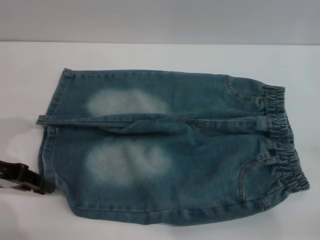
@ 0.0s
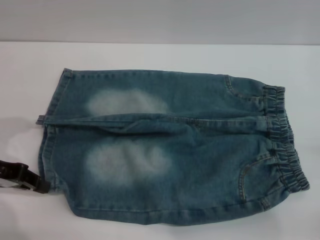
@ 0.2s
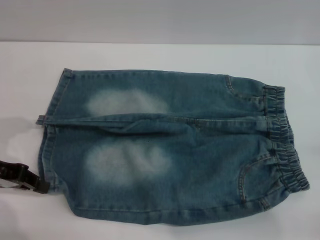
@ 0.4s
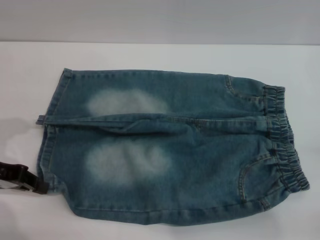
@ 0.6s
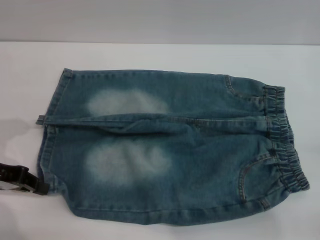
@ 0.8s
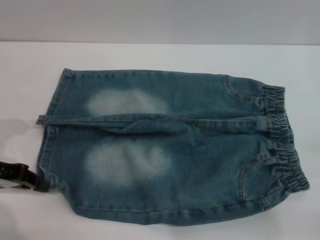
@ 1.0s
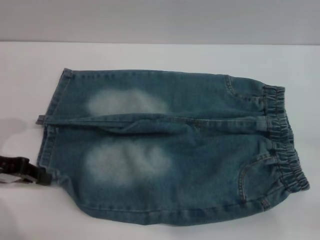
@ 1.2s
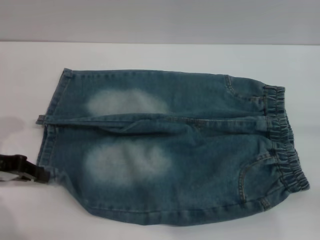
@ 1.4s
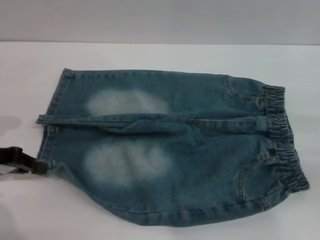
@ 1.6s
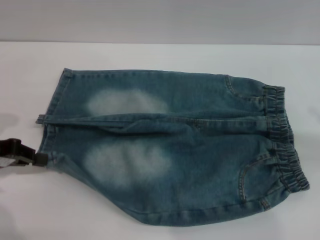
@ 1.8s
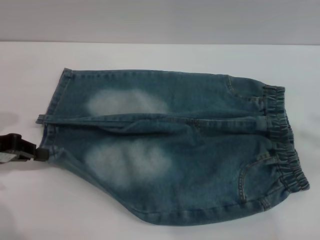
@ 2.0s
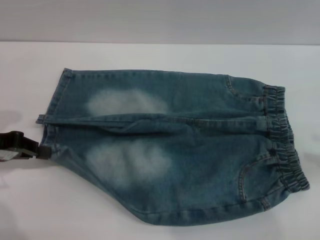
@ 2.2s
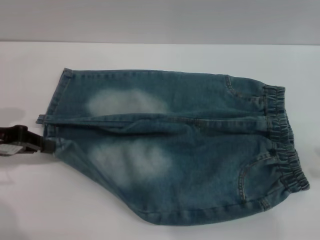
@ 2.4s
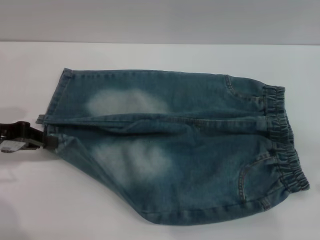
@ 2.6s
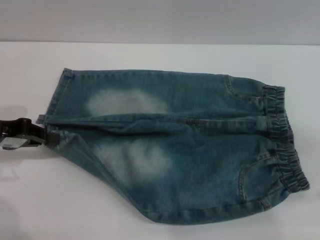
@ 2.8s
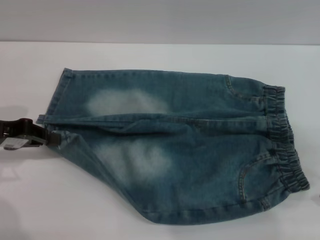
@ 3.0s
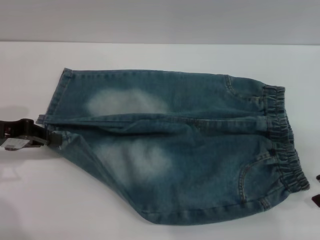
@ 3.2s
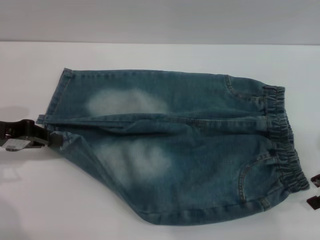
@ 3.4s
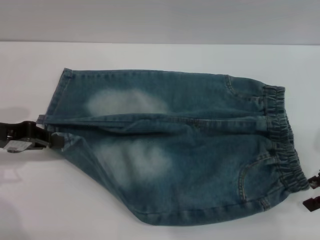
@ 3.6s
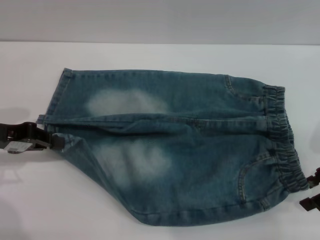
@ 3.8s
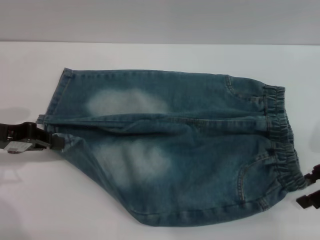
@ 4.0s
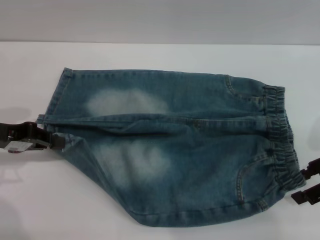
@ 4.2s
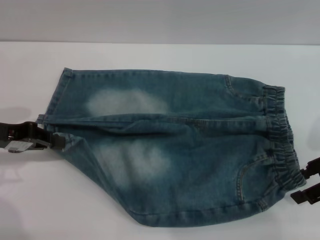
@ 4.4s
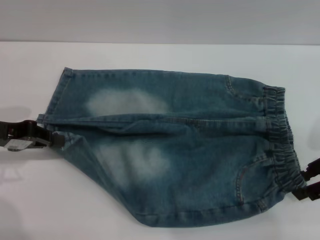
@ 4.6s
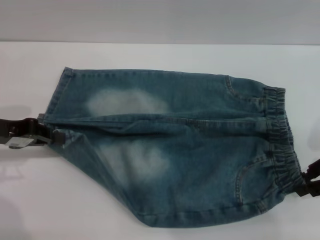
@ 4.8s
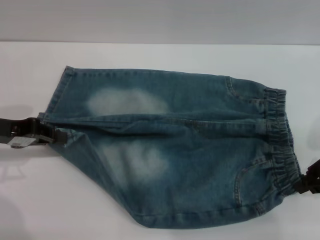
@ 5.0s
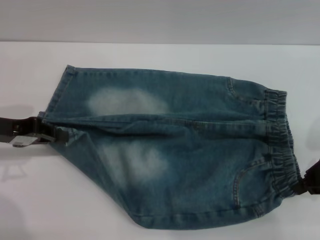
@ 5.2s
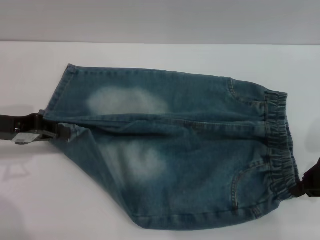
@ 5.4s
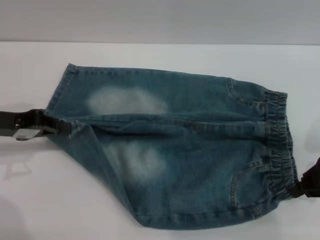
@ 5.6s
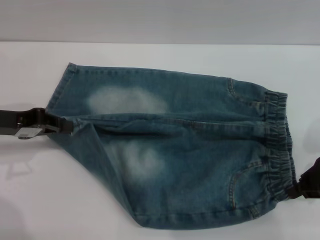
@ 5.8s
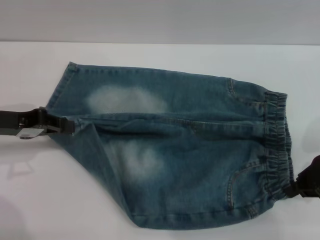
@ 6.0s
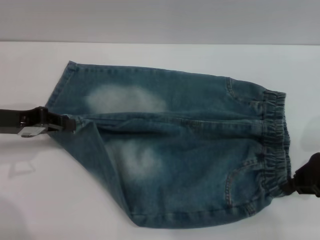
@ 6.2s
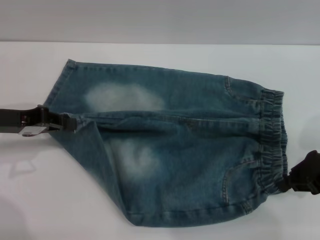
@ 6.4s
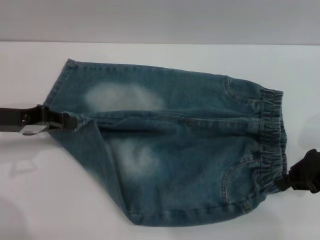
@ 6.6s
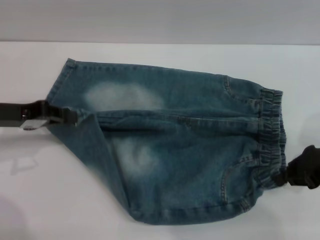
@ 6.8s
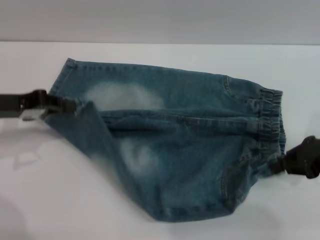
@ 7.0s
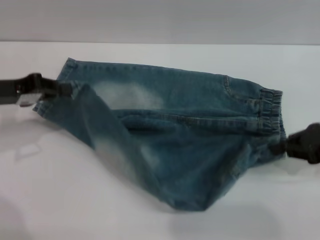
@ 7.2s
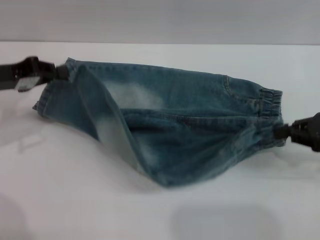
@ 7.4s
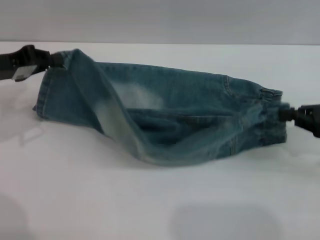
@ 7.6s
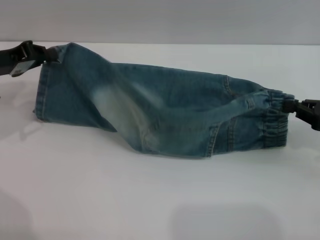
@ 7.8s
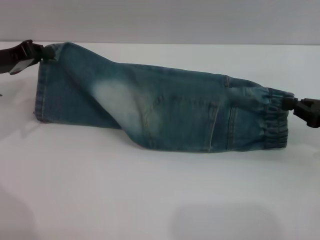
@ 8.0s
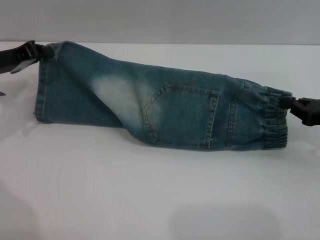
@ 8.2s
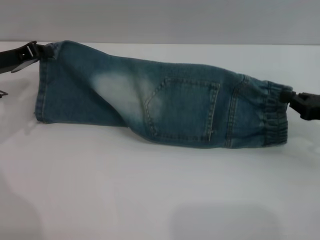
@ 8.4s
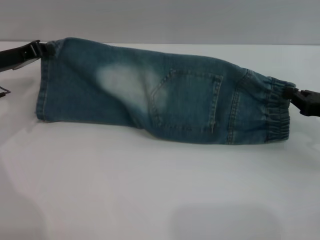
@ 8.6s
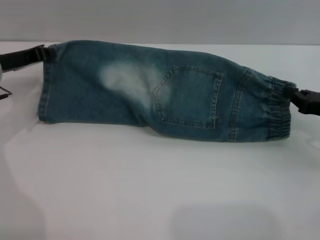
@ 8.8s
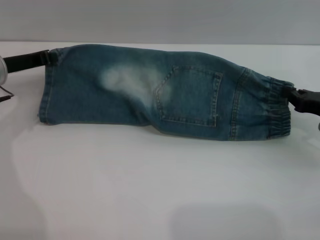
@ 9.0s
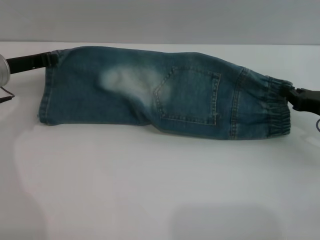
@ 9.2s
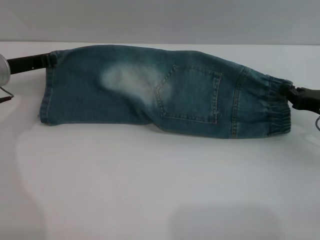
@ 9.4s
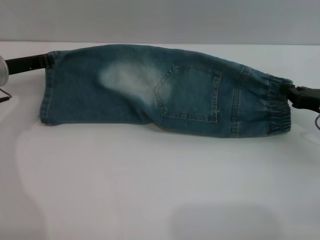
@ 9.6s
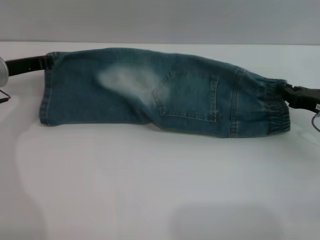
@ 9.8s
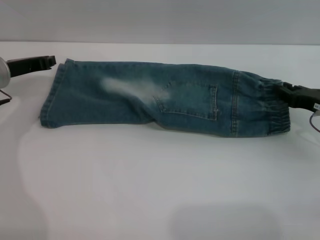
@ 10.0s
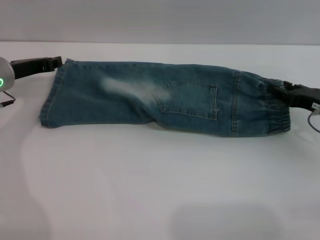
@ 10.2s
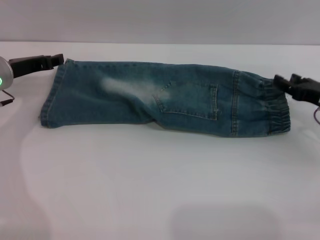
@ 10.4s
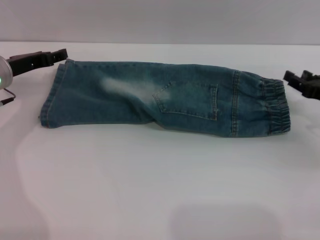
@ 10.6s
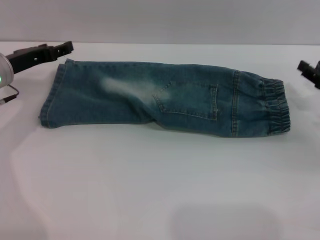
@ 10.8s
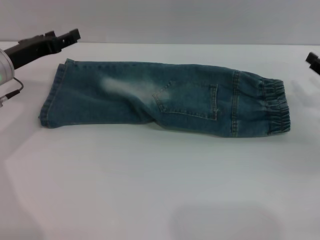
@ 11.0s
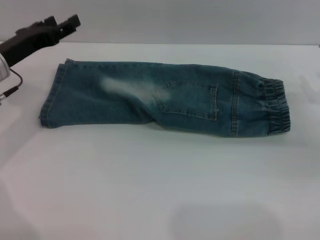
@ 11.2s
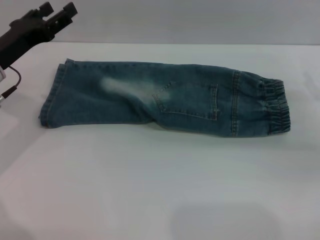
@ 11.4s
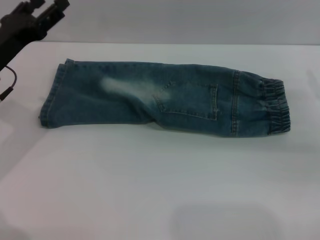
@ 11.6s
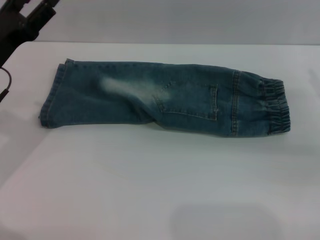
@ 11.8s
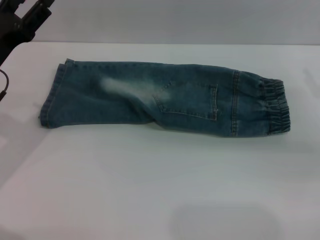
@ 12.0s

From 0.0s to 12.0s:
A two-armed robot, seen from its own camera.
Step, from 0.0s to 10.6s: Fold the bottom of the pants upward with both grippers.
From 0.0s to 1.6s: The left gripper closes.
From 1.6s to 3.0s: The right gripper goes some 5 cm to the left, and goes upward and returns, about 10 cm each way.
From 3.0s to 4.4s: The grippers make only small movements.
From 4.4s to 6.0s: The right gripper closes up.
From 7.6s to 9.0s: The left gripper ends up about 5 cm from where it was. The right gripper goes about 5 cm downward.
From 9.0s to 10.4s: The right gripper opens its fingers.
From 10.4s to 12.0s: The right gripper moves some 5 cm. Meanwhile the left gripper moves backward, some 10 cm, and opens its fingers.

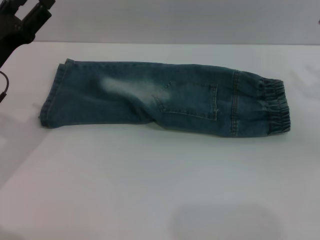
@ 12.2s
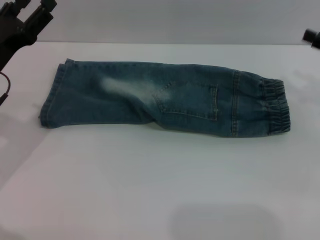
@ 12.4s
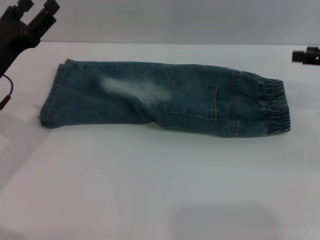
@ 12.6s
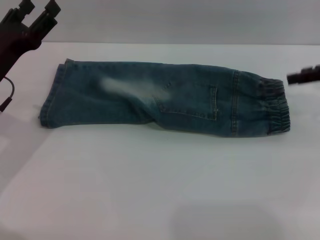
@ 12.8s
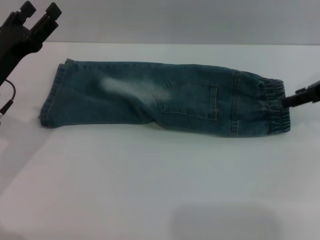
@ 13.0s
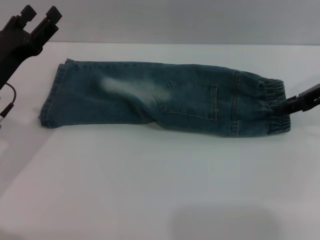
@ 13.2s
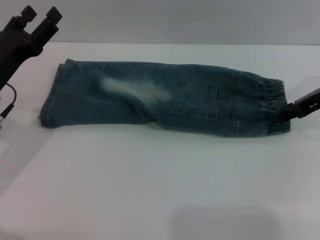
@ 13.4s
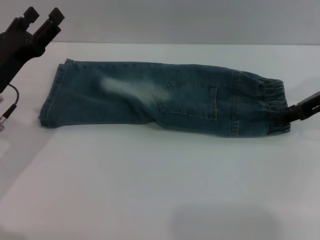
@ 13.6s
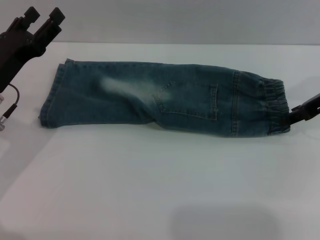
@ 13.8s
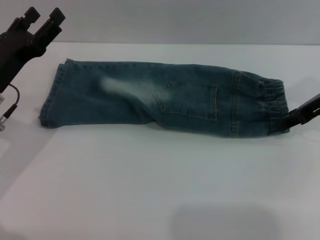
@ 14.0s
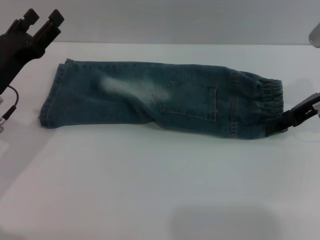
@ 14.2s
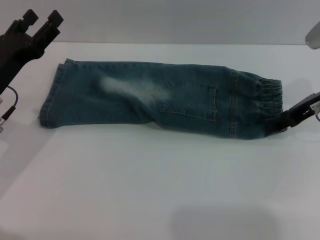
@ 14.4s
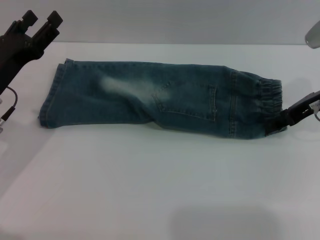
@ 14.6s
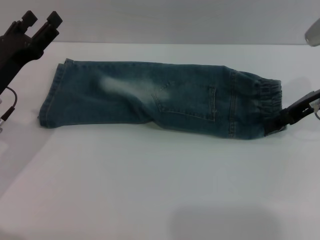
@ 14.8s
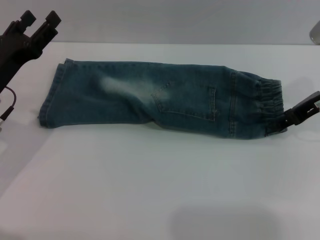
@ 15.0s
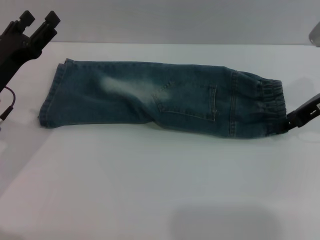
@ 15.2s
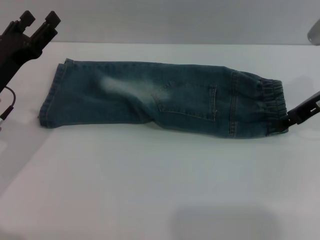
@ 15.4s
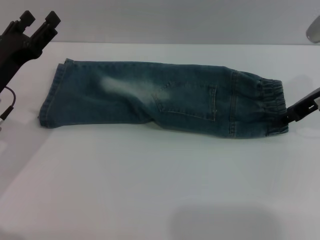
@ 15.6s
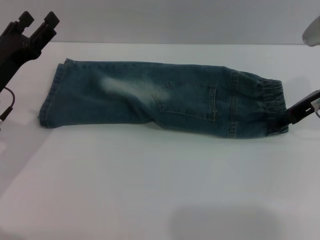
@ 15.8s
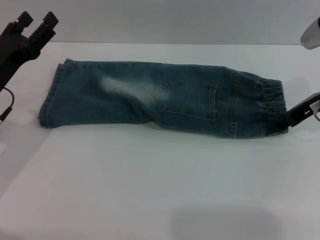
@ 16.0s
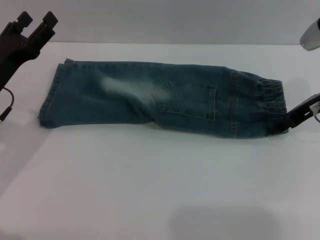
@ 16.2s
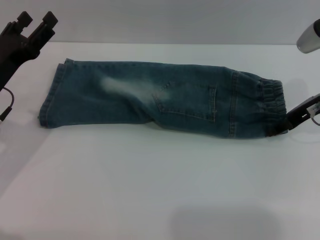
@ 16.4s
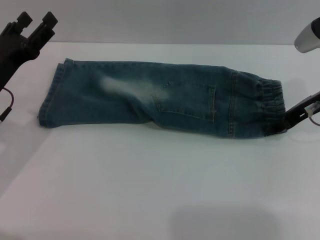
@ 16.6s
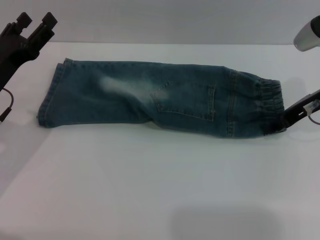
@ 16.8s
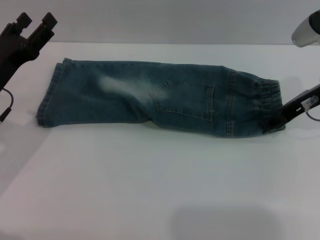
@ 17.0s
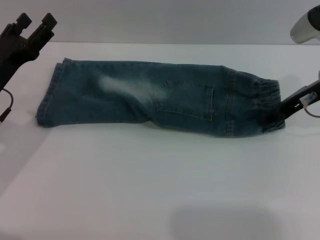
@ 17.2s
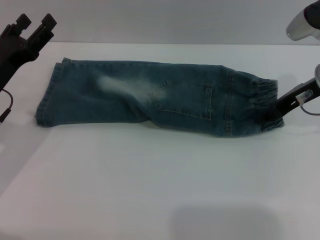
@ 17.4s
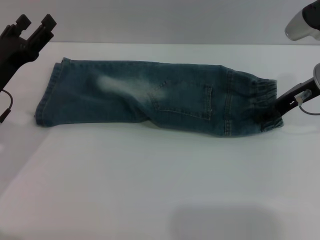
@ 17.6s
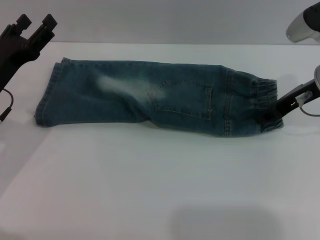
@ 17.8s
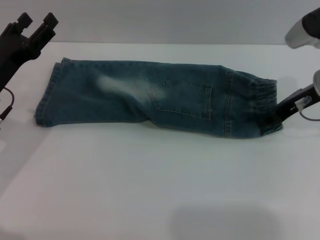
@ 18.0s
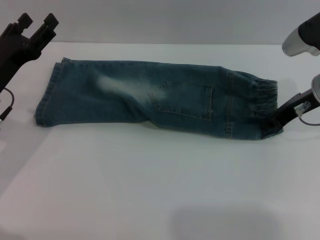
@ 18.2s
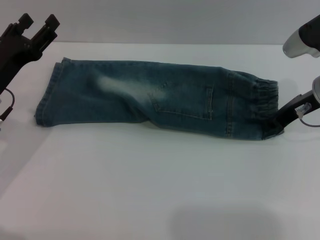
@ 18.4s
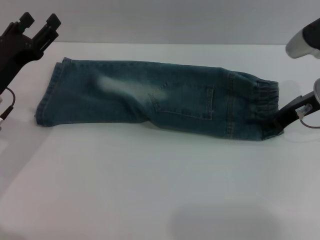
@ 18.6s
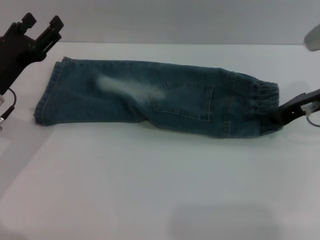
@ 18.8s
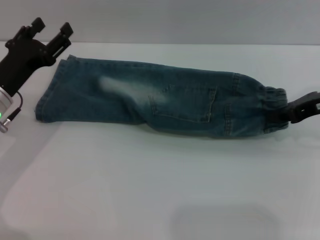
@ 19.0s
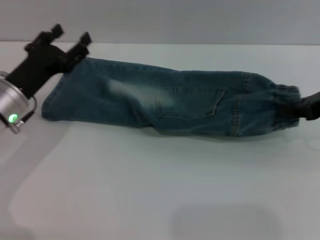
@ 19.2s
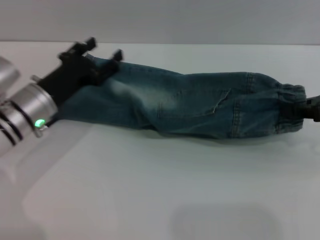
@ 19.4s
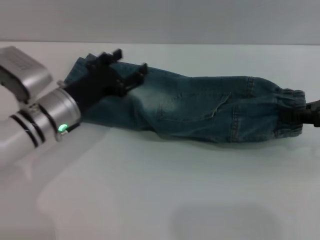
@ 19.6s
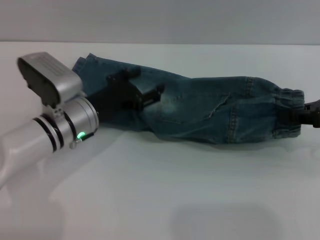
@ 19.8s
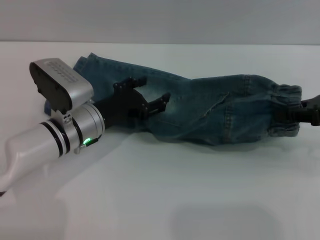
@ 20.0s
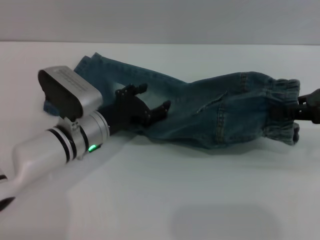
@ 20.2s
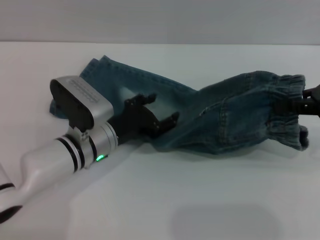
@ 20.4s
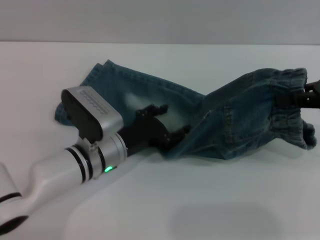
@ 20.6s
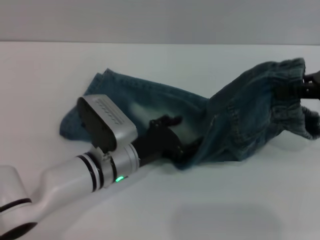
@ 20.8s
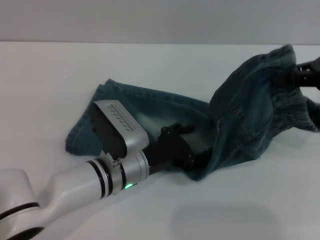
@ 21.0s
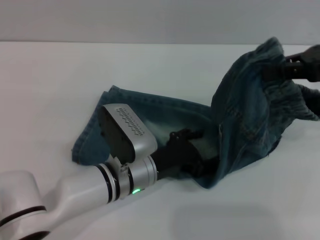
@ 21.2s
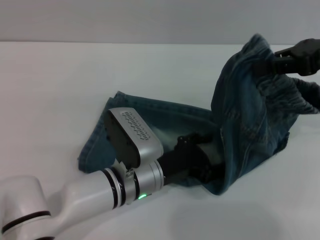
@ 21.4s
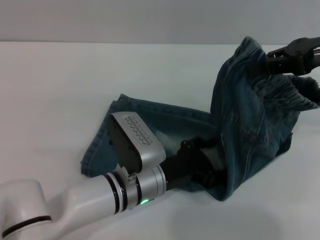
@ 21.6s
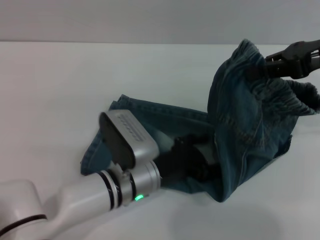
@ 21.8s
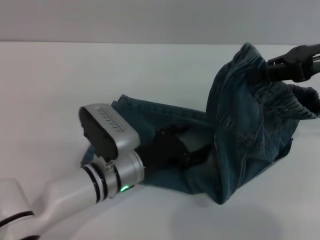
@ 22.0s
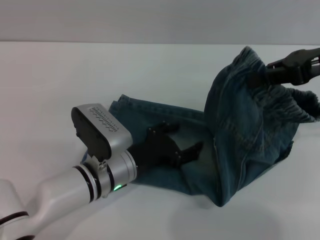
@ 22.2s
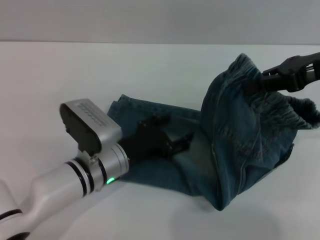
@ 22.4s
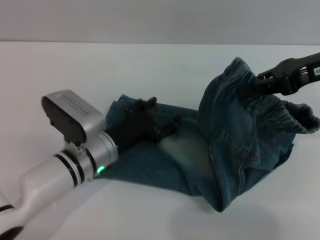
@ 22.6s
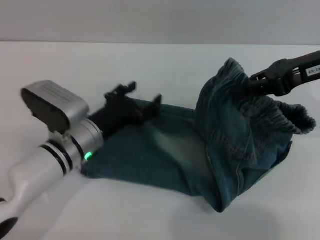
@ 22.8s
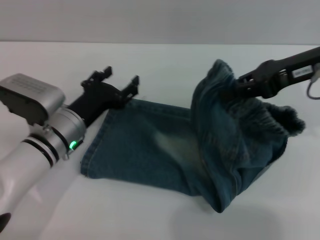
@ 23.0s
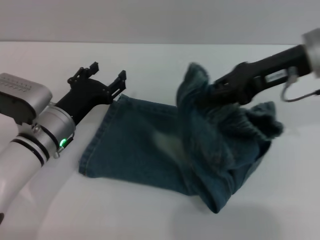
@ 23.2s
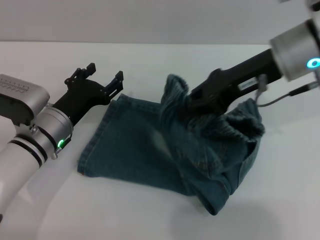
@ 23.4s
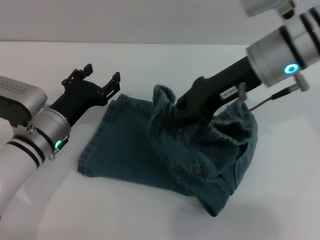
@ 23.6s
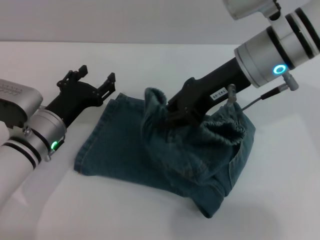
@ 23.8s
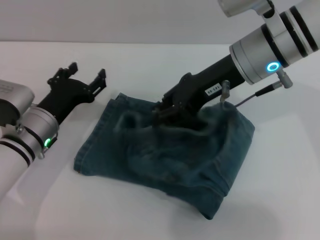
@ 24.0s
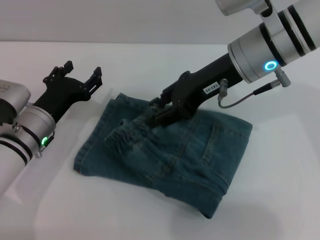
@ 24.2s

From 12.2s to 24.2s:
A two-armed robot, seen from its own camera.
From 12.2s to 13.8s: The right gripper is displaced to the left by some 5 cm.
From 13.8s to 16.6s: The grippers stay close to where they were, moving slightly.
From 16.6s to 18.2s: The right gripper closes its fingers.
From 18.2s to 19.8s: The right gripper heads backward and to the right, covering roughly 10 cm, and closes up; the left gripper goes roughly 10 cm to the right.
From 19.8s to 21.2s: The left gripper is displaced to the right and backward by about 10 cm, while the right gripper heads upward, covering about 5 cm.
From 21.2s to 22.6s: The left gripper heads to the left, covering about 5 cm.
From 22.6s to 24.2s: The left gripper heads to the left, covering roughly 10 cm. The right gripper goes about 15 cm to the left.
